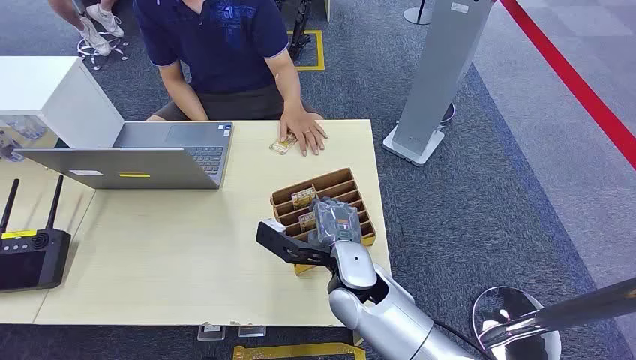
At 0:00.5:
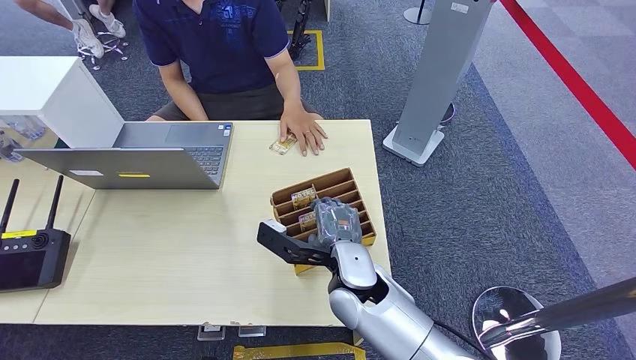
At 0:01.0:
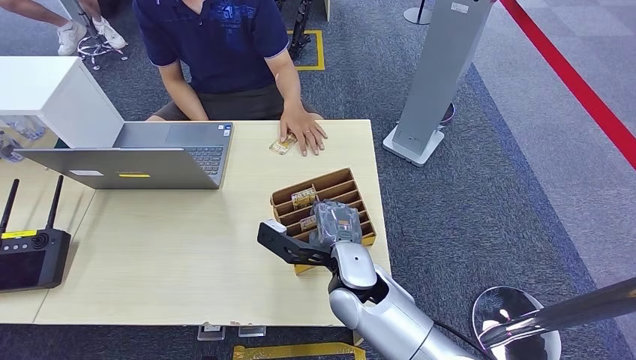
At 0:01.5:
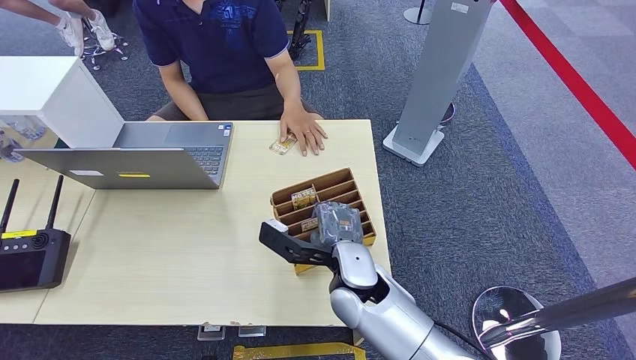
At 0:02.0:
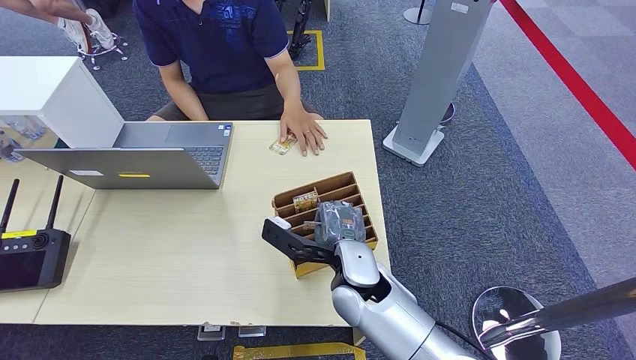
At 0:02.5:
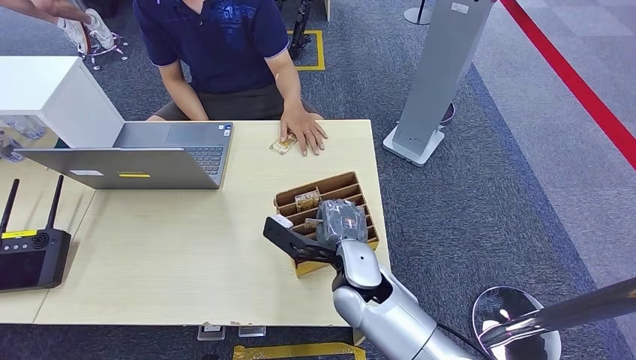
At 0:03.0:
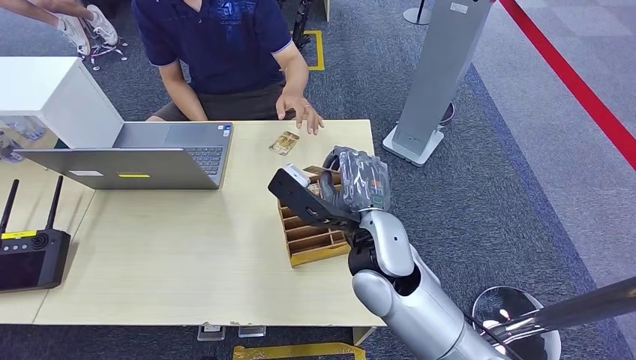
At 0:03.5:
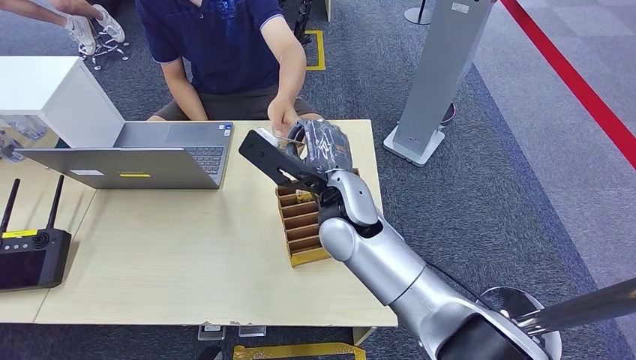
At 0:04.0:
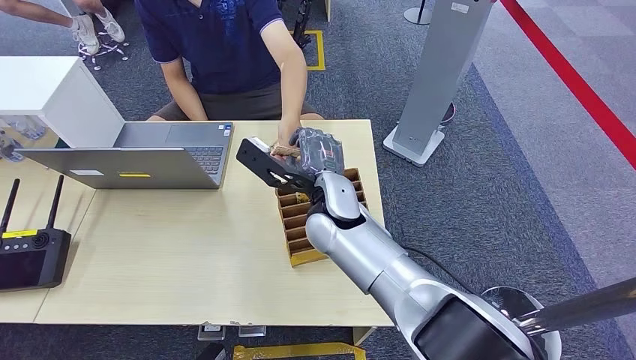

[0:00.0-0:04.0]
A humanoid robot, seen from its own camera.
Step, 0:00.0 to 0:02.5: Pick up the key card from the card box.
0:02.0 to 0:04.0: The right hand is displaced forward and upward by roughly 10 cm.
